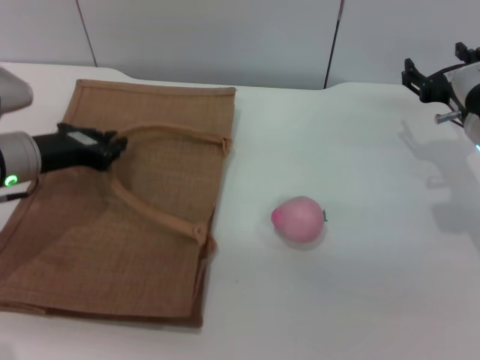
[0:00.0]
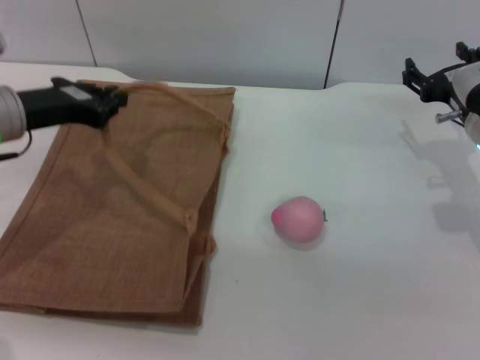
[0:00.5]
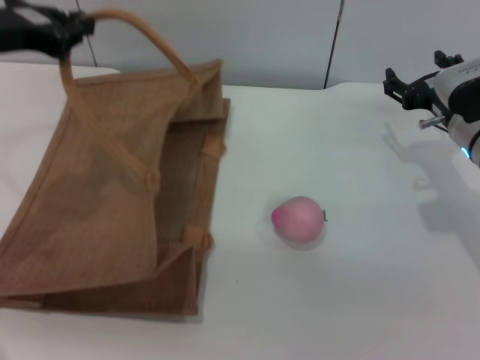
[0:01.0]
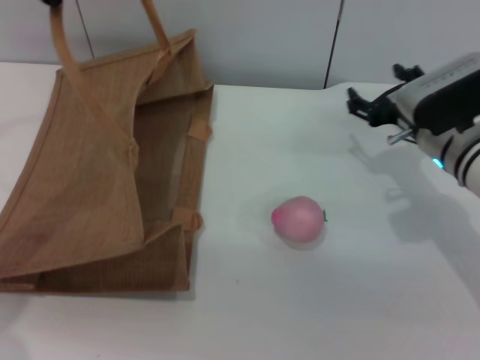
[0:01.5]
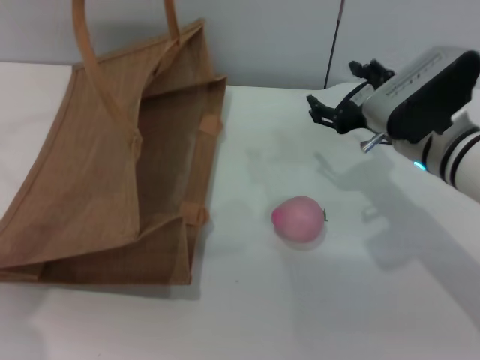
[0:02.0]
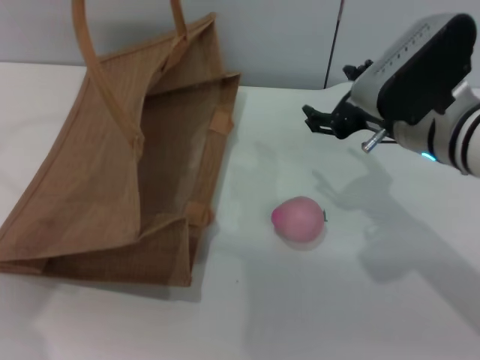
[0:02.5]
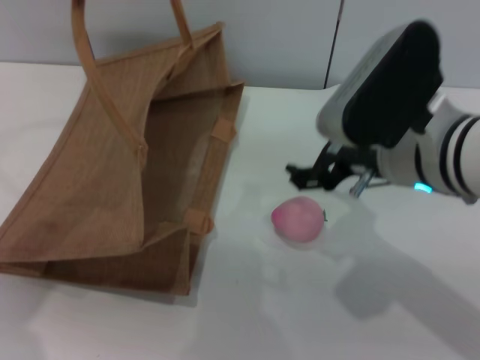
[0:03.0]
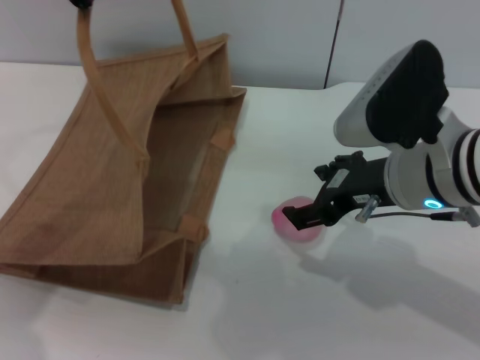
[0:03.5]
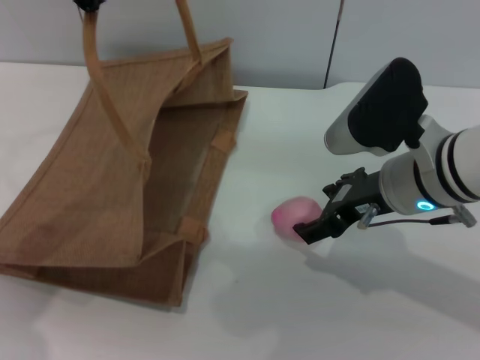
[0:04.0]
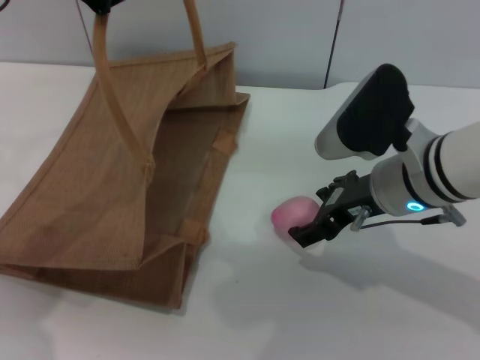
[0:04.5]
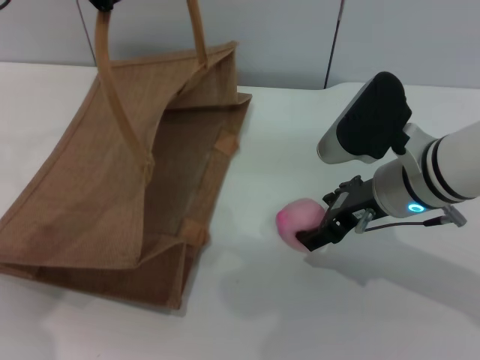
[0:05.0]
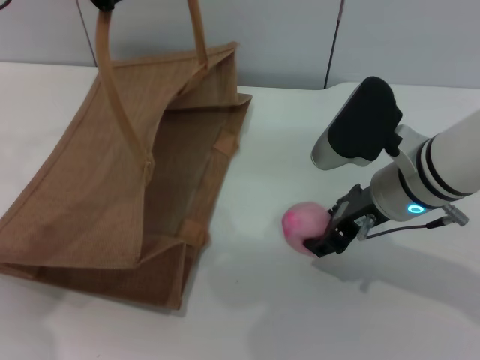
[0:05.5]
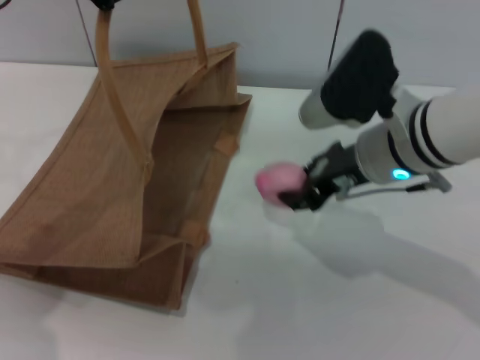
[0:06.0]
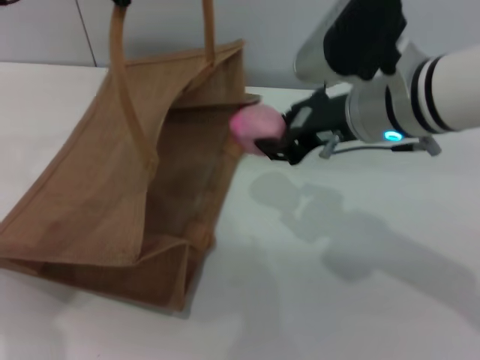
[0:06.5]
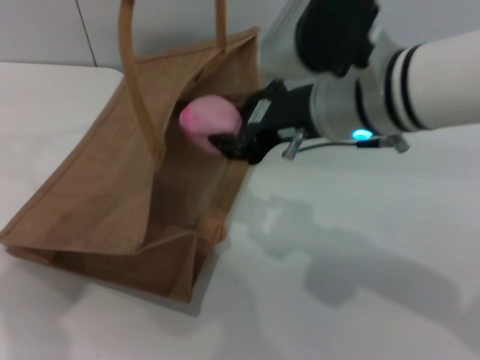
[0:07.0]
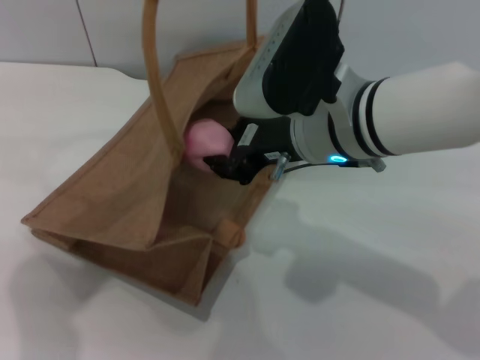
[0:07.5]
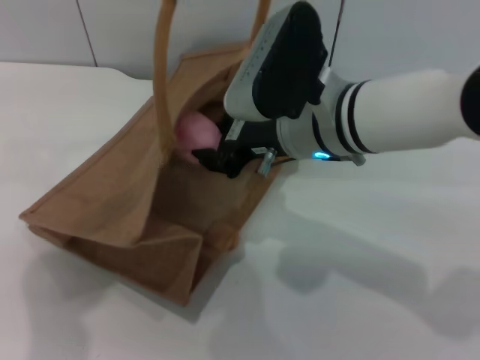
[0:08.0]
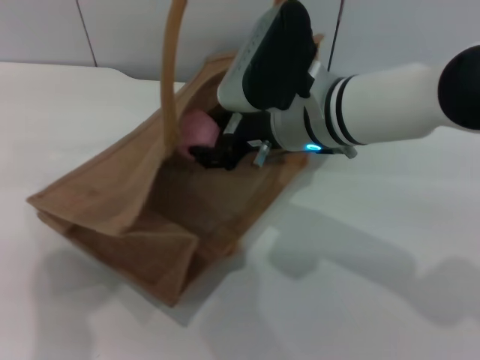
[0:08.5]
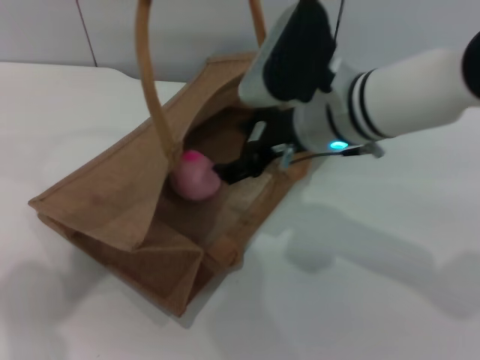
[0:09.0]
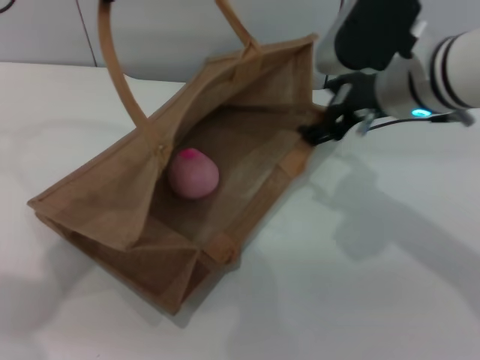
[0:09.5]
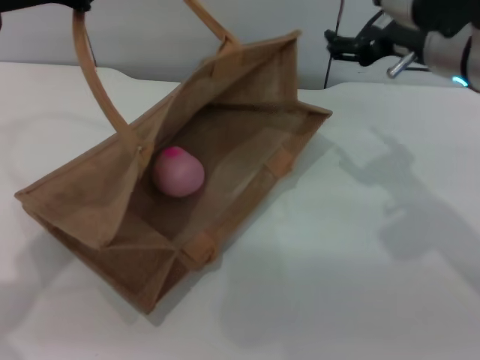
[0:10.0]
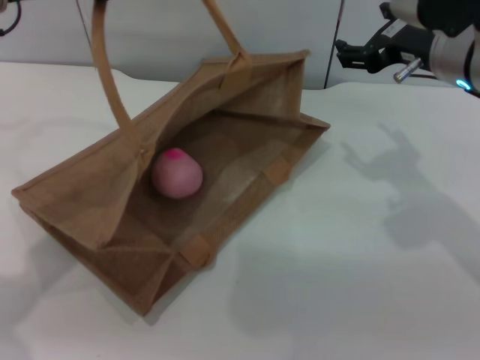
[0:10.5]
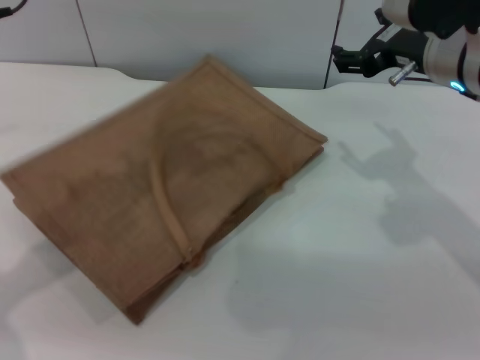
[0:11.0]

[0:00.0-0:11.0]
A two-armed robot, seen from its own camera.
Task of the whole recording: pick up the peach from the table and place it in the brown handbag.
Step, 0:01.5 to 0:05.5: Pick up the peach with the right gripper.
Step, 0:06.0 to 0:09.0: Place the peach into the woven bag with the right gripper.
Step, 0:09.5 to 0:10.5: Lower the woven bag with the left gripper to close it.
0:00.0 to 0:02.0: The left gripper travels upward by approximately 20 cm, and closes up. Meanwhile the right gripper goes about 5 cm to the left.
0:02.0 to 0:03.5: The right gripper moves upward and backward, approximately 10 cm.
0:03.5 to 0:05.5: The right gripper moves about 5 cm.
0:05.5 to 0:07.5: The right gripper is displaced to the left and upward by roughly 10 cm, and closes up.
0:07.5 to 0:09.0: The right gripper opens up.
0:09.0 to 0:11.0: The left gripper ends up some 5 cm from where it was, and opens up. The right gripper shifts approximately 10 cm to the right.

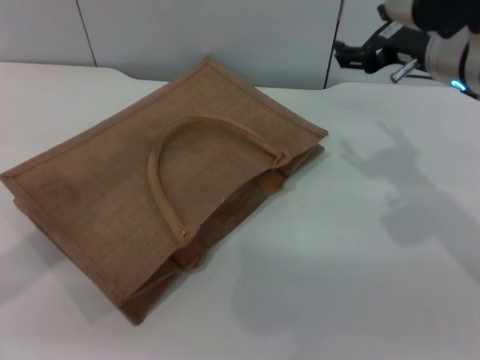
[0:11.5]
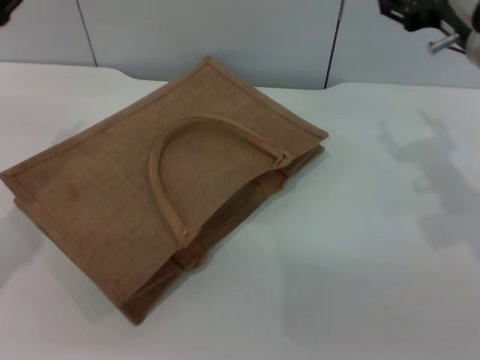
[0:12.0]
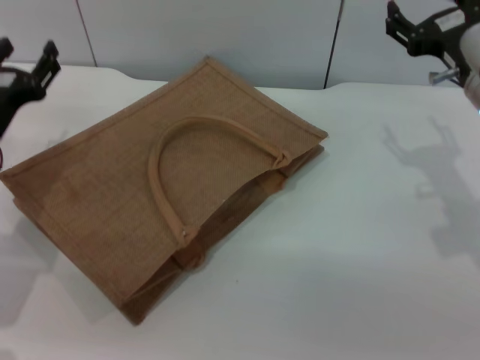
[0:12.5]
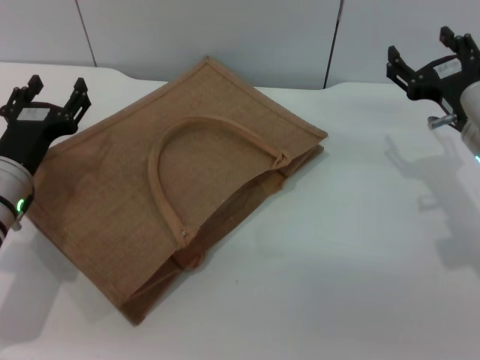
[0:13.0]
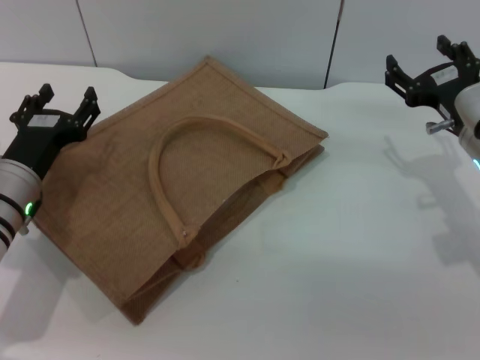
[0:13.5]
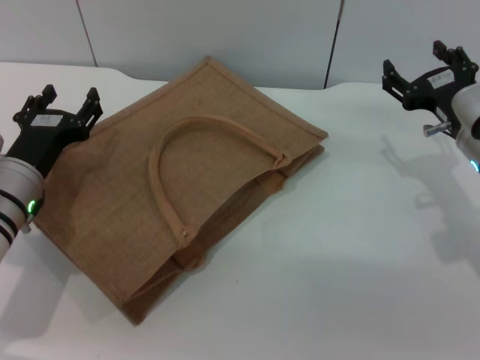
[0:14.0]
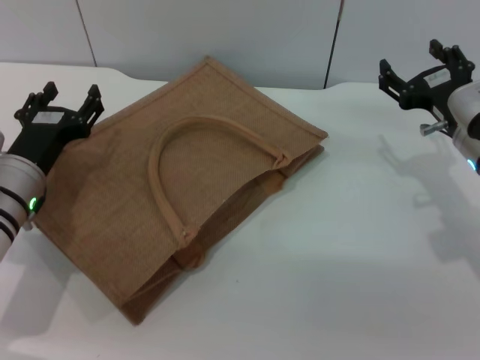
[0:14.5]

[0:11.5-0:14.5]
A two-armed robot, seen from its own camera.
Task of the whole recording: pick up the peach from the table and place it in the brown handbag.
0:11.5 to 0:13.0: The left gripper heads downward, covering approximately 20 cm. The right gripper heads downward and to the right, covering some 10 cm.
0:13.0 to 0:14.5: The two grippers keep their place.

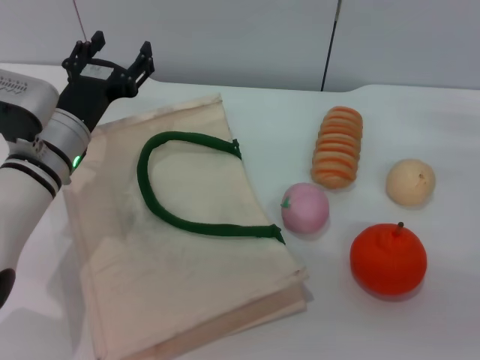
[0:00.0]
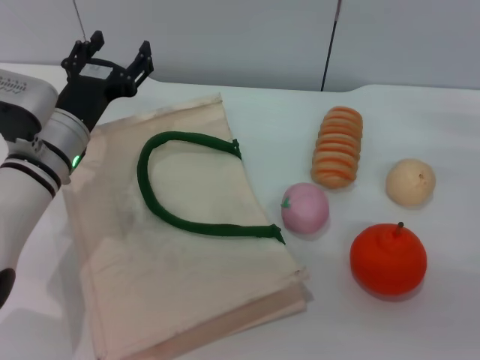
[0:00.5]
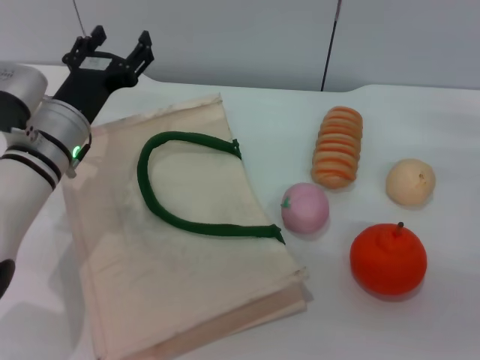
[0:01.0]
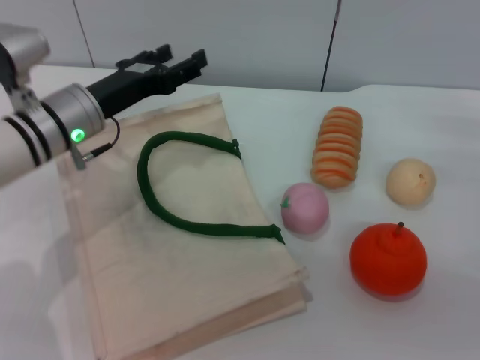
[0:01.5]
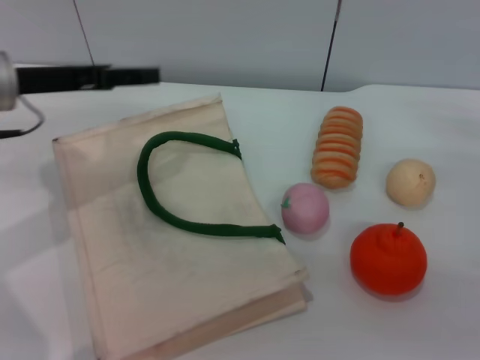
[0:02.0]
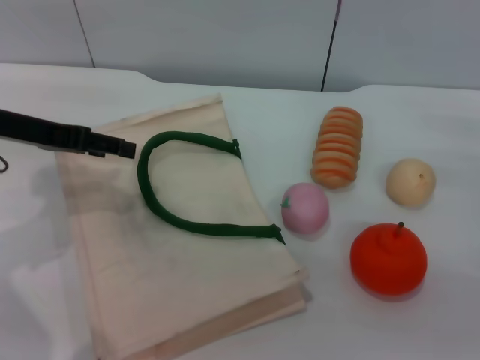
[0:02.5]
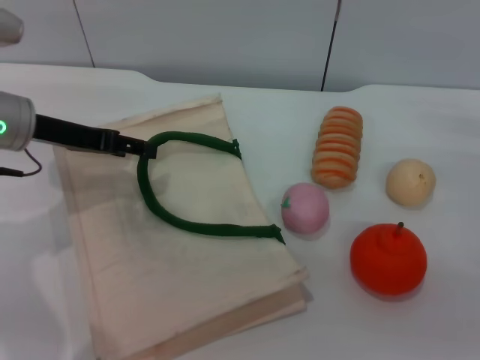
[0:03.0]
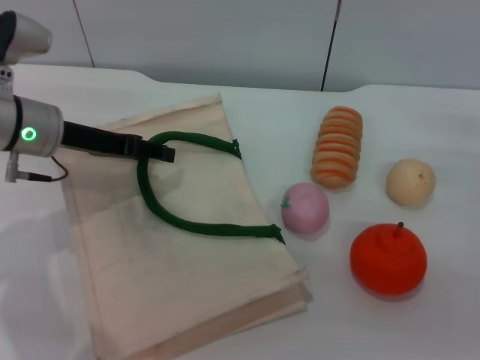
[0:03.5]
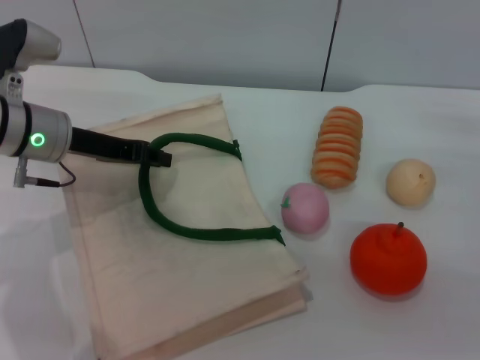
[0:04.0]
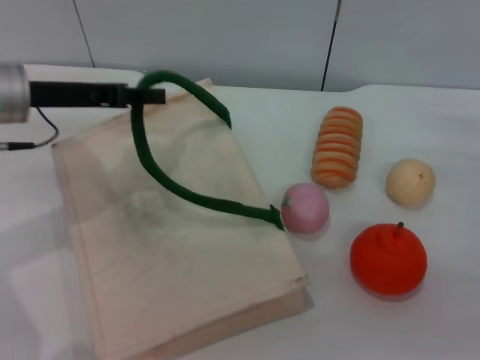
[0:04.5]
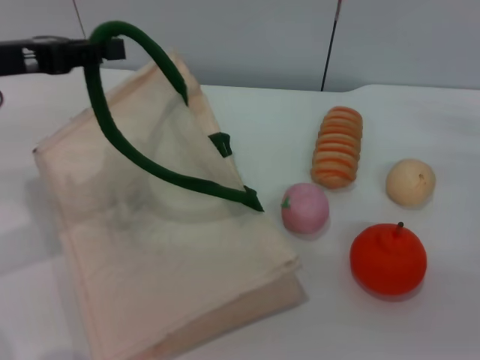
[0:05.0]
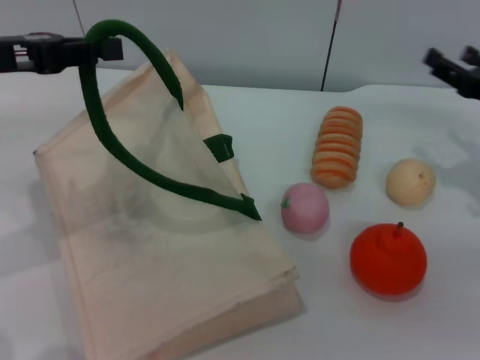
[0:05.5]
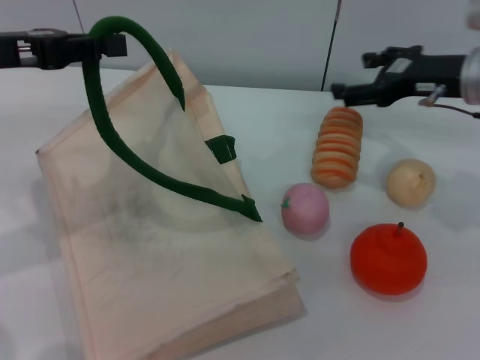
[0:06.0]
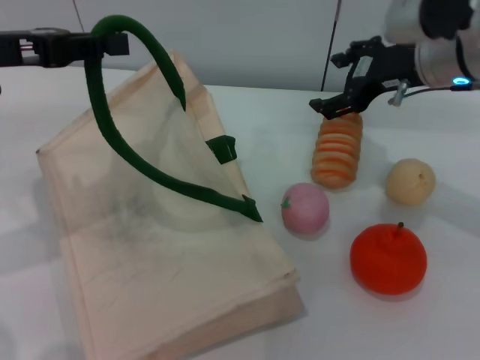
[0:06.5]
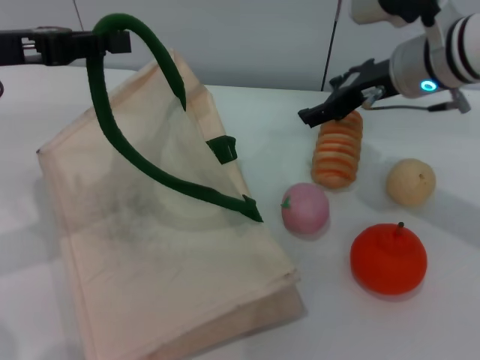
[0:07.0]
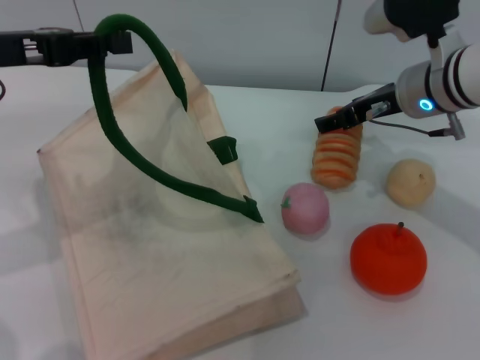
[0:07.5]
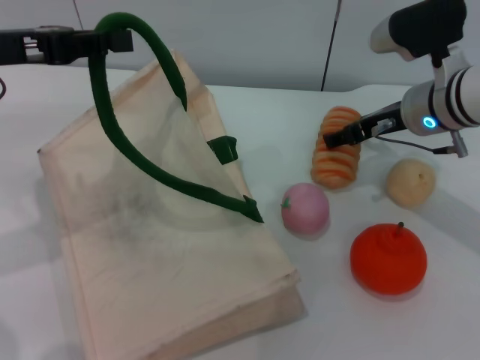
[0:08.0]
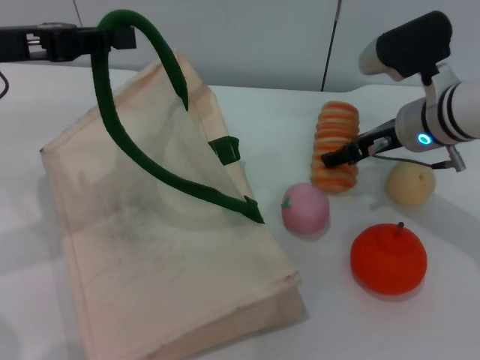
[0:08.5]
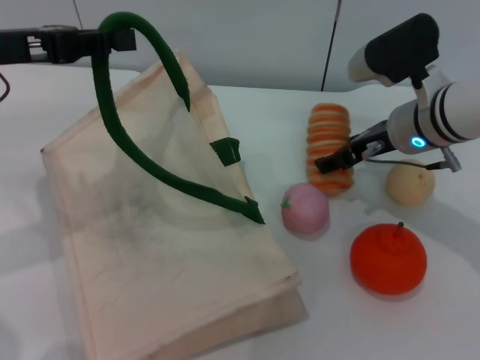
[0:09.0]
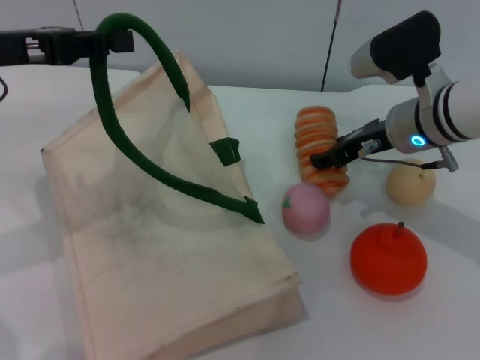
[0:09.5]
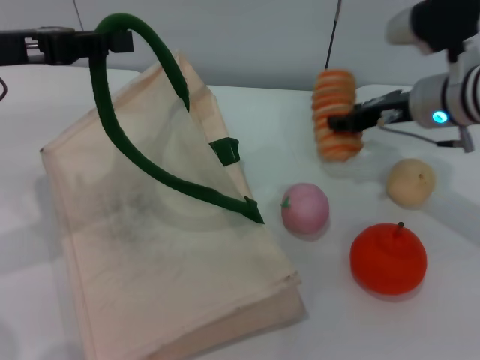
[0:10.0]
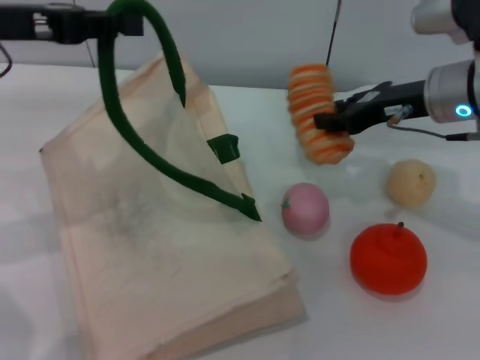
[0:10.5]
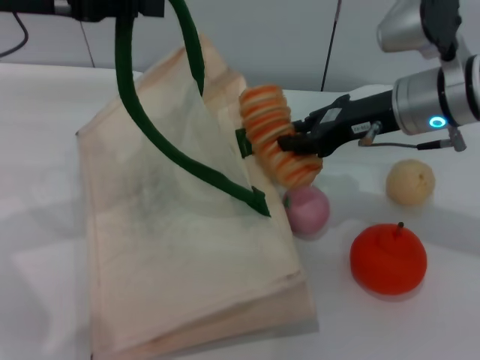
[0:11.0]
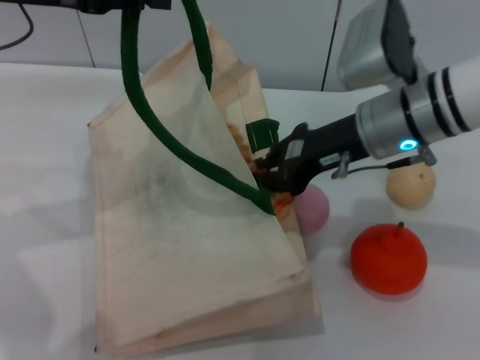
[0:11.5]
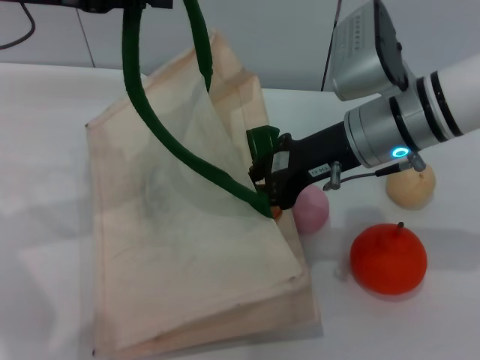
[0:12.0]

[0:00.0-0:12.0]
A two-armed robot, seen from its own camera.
Task of the whole recording: pick up the bread from the table and place it in the white handbag.
Step, 0:00.0 to 0:05.5: Lift the woven bag with the left gripper to open it.
Step, 0:06.0 to 0:10.0: Pick up the bread with the right gripper.
0:00.0 to 0:02.0: The left gripper shifts about 10 cm upward and to the left.
0:02.0 to 0:04.0: The left gripper ends up some 5 cm from where it was, and closes.
0:04.0 to 0:06.0: The right gripper heads to the left, upward and forward, covering some 15 cm. Meanwhile the left gripper shifts roughly 10 cm upward and to the left, and closes.
0:06.0 to 0:08.0: The right gripper goes approximately 5 cm to the left.
0:08.0 to 0:10.0: The right gripper closes its fingers.
0:10.0 to 0:12.0: The left gripper goes approximately 5 cm upward. The right gripper heads to the left and backward, covering roughly 10 cm, and closes up.
